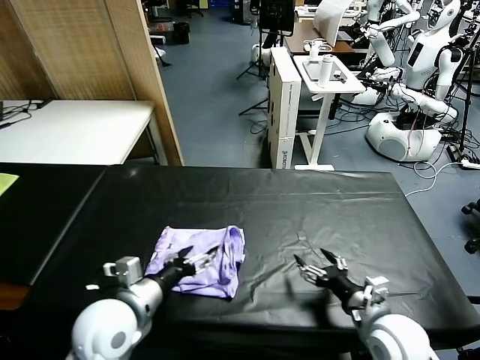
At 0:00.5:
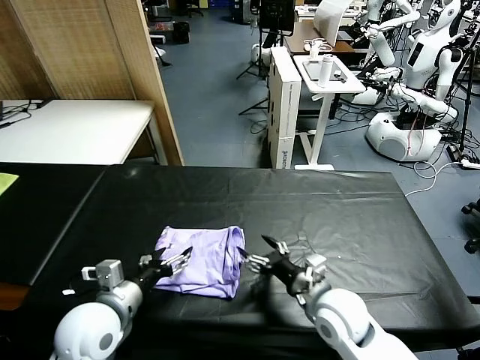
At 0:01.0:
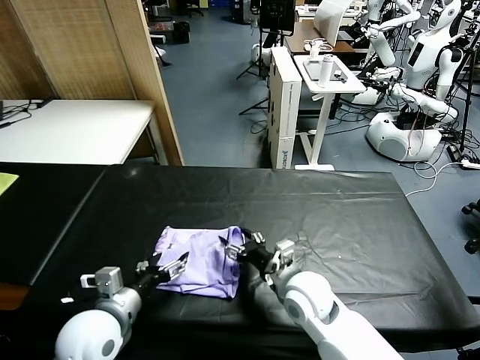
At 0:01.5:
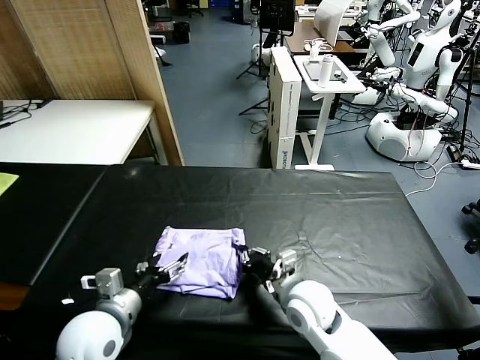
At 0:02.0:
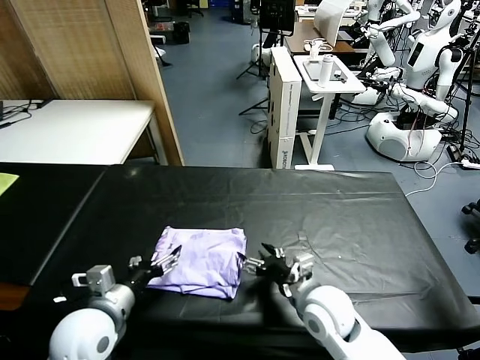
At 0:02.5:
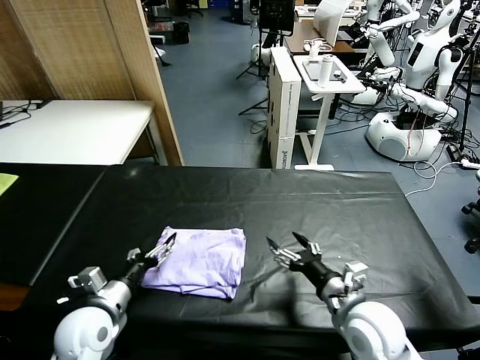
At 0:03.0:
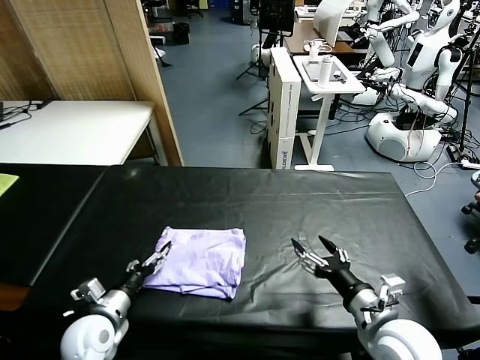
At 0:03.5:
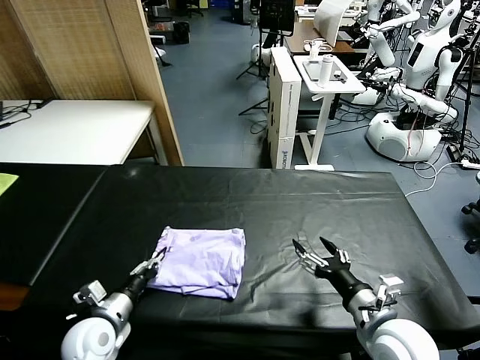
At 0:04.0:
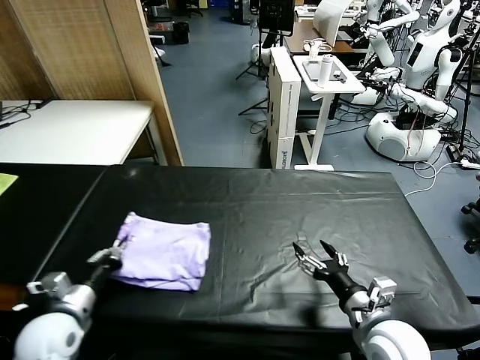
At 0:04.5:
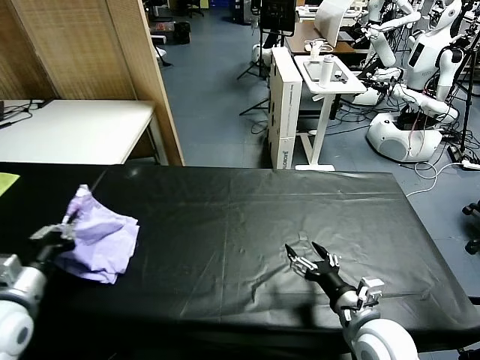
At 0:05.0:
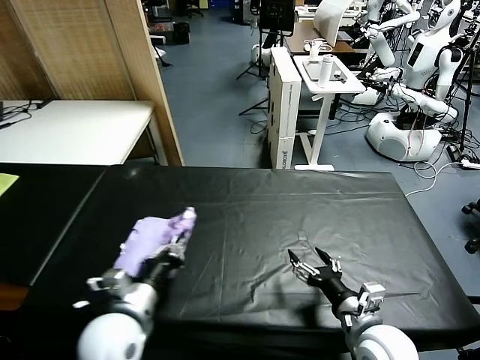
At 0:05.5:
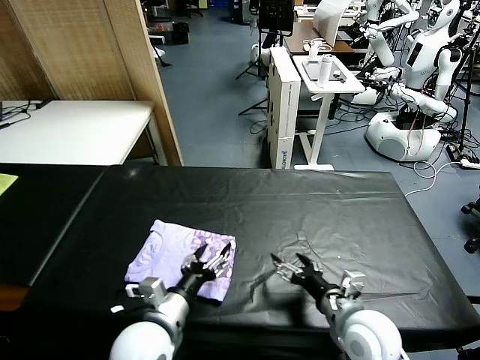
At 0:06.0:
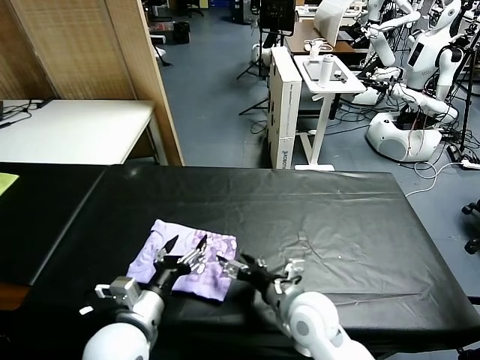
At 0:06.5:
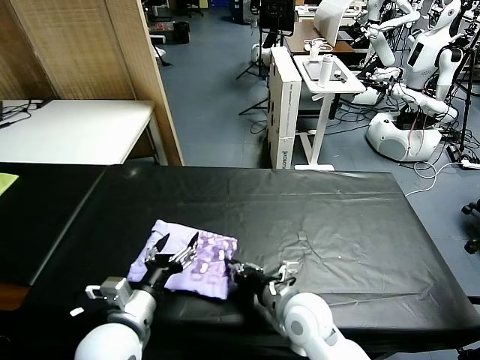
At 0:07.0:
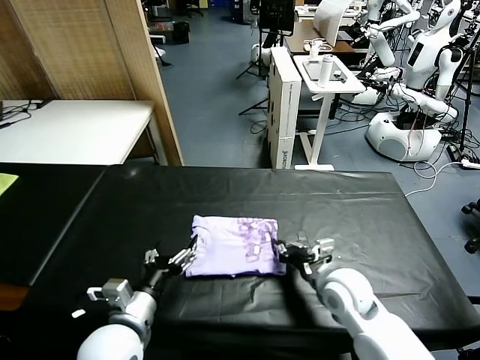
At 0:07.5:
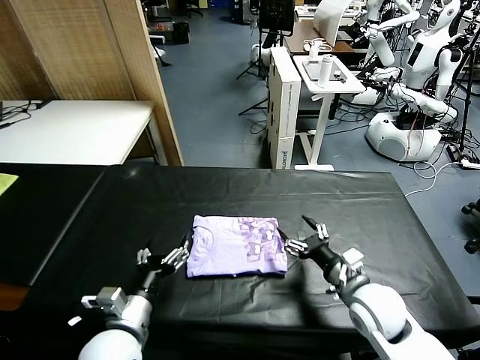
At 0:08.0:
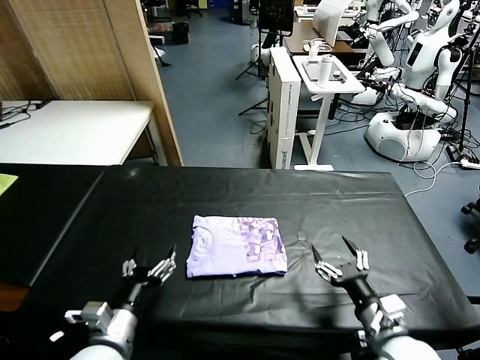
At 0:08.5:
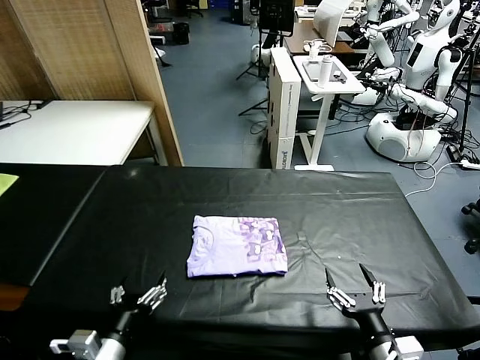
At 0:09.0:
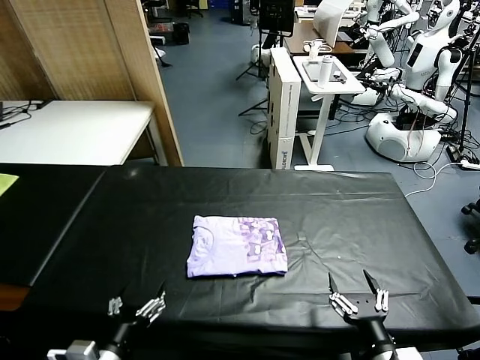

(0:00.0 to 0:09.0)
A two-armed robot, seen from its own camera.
Task of the whole recording: fold and organize the clothes.
Step, 0:00.5 - 0:05.5: Flip the folded clothes over with left gripper.
Step, 0:06.0 - 0:07.0: Drag the clothes to the center of the table.
0:00.0 - 0:02.0: The right gripper moves to the left, about 10 cm, and closes and opens again.
0:02.0 - 0:04.5: The left gripper goes about 15 cm to the left, reaches roughly 10 cm downward, then returns, and closes. Meanwhile the right gripper goes about 10 cm to the right and backward.
0:04.5 - 0:07.0: The left gripper travels to the right by about 20 cm, and opens up. Meanwhile the right gripper moves forward, roughly 10 cm, travels to the left and back again, roughly 10 cm each way, and closes up.
0:07.0 - 0:09.0: The right gripper shifts approximately 20 cm backward, and opens its fingers; the left gripper moves backward, some 10 cm.
